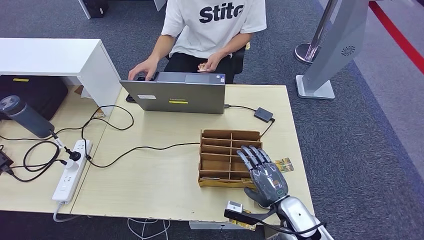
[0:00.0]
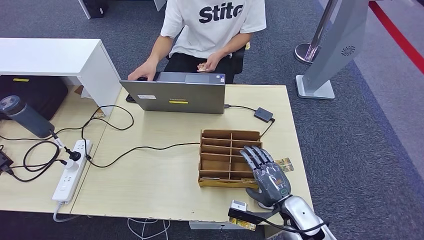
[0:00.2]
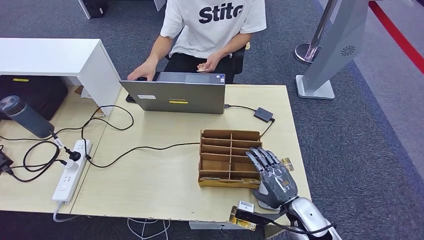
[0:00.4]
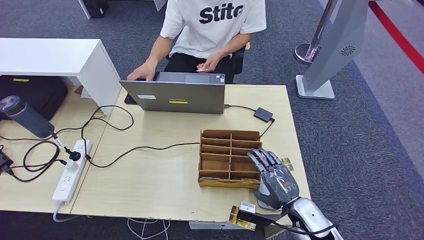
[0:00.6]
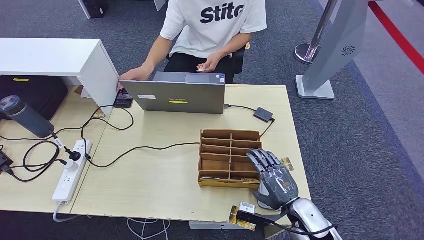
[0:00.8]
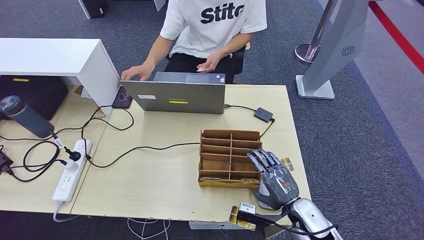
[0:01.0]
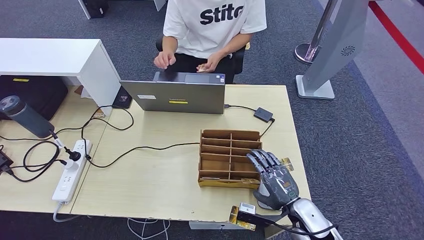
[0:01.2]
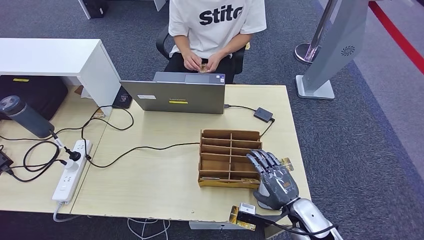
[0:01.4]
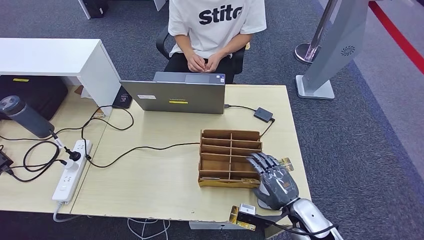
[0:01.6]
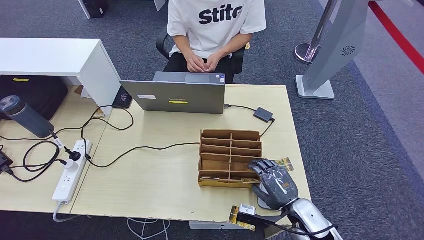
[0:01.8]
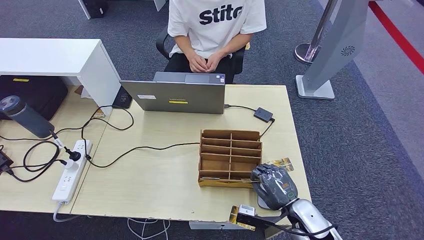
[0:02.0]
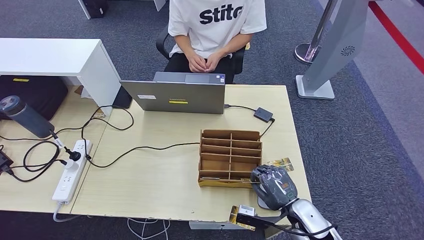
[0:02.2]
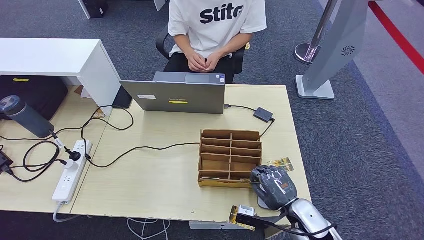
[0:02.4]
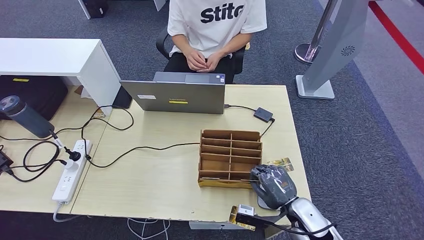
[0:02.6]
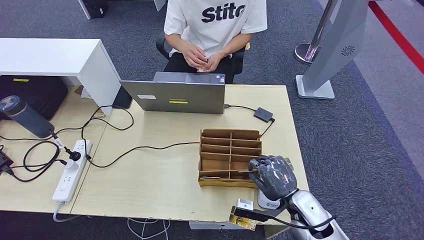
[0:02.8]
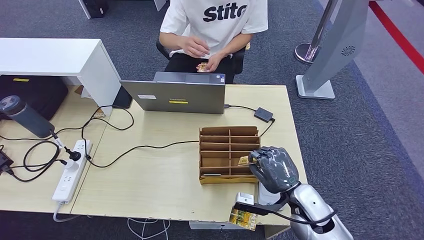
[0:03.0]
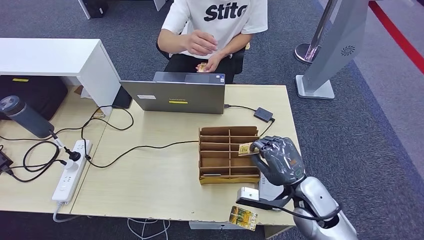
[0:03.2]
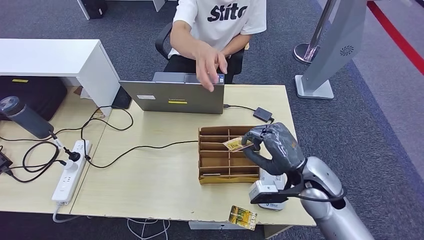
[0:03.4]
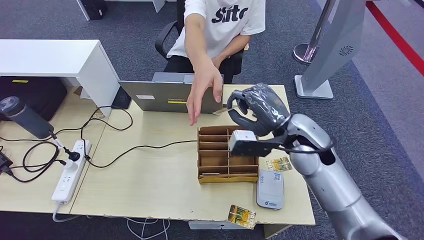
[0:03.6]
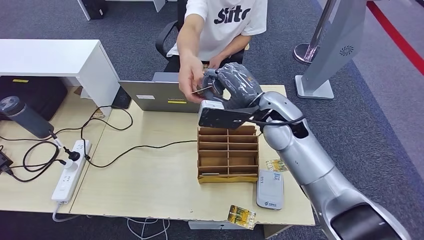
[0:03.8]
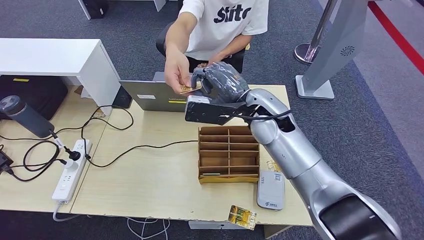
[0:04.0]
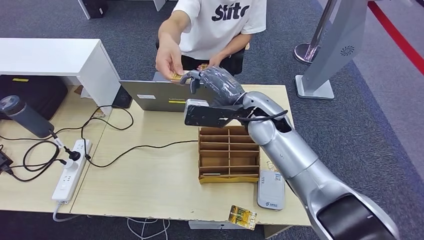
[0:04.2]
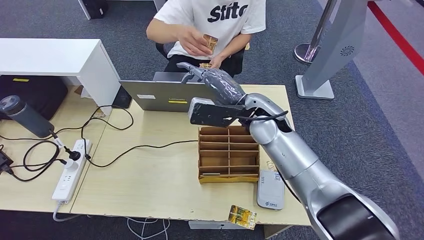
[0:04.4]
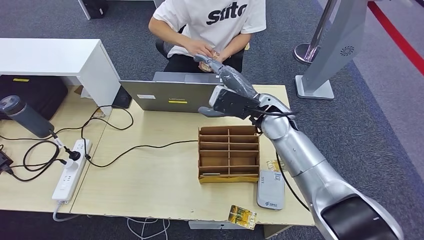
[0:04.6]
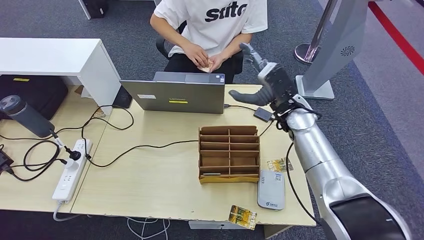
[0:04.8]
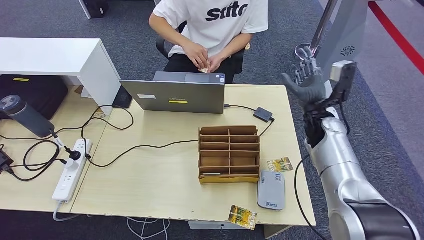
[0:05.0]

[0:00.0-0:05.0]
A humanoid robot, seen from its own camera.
Step, 0:00.0 to 0:03.2: Pick up the room key from the key card box.
Step, 0:03.4 to 0:05.0: Hand the room key to the person.
0:00.0 to 0:01.6: The hands move only a little.
0:01.6 to 0:03.4: The right hand travels upward and forward by roughly 15 cm.
0:03.4 to 0:05.0: The right hand is displaced forward by about 15 cm, and reaches some 15 cm to the left, then returns.

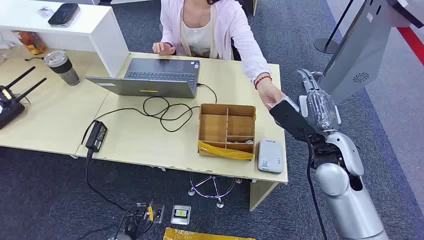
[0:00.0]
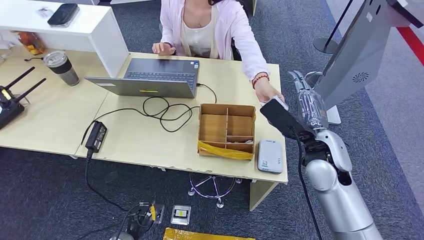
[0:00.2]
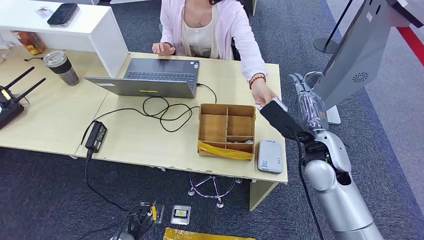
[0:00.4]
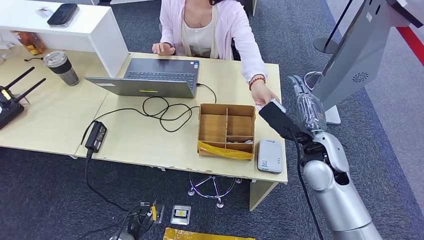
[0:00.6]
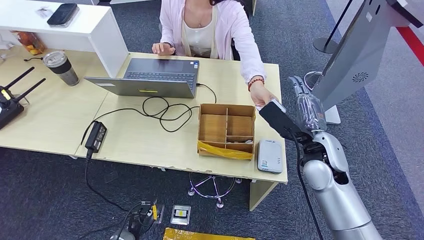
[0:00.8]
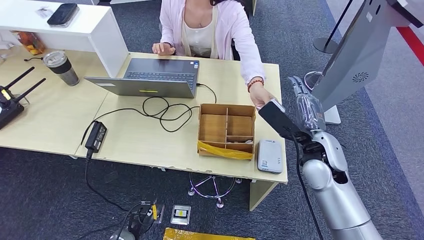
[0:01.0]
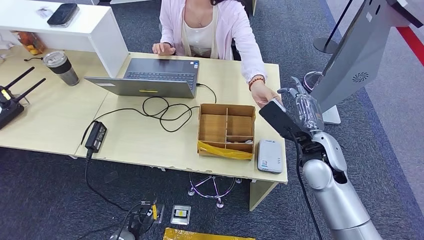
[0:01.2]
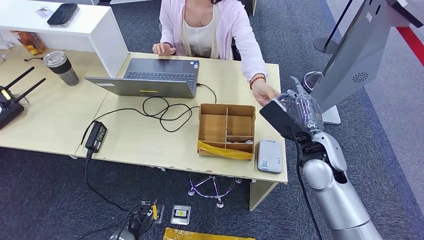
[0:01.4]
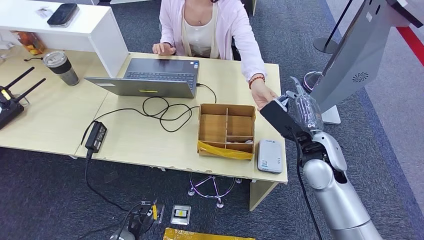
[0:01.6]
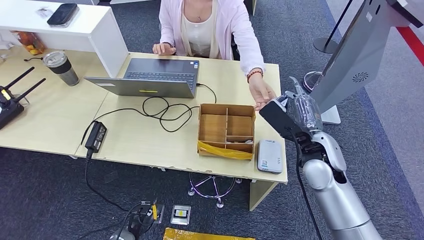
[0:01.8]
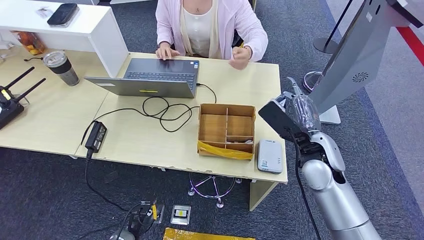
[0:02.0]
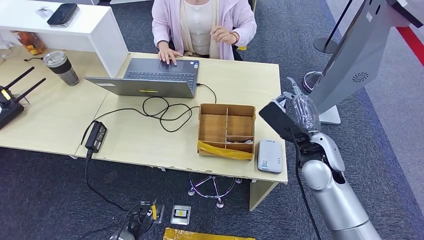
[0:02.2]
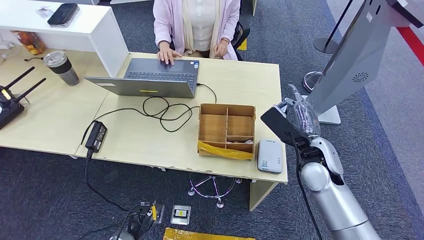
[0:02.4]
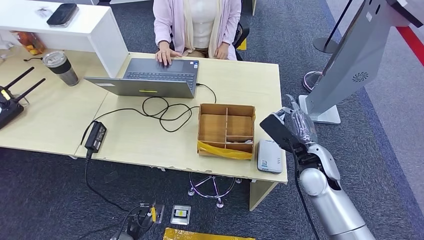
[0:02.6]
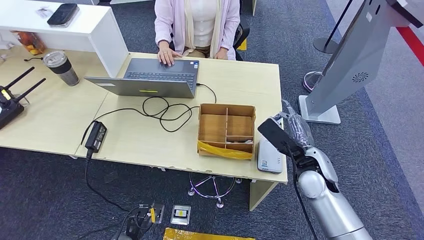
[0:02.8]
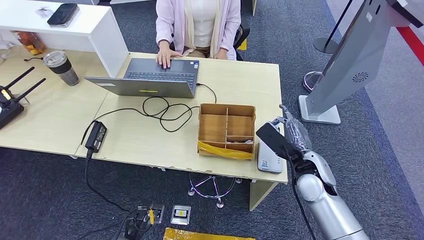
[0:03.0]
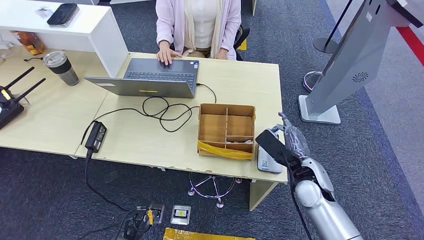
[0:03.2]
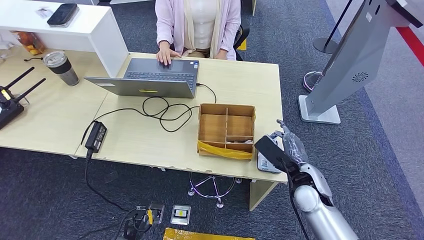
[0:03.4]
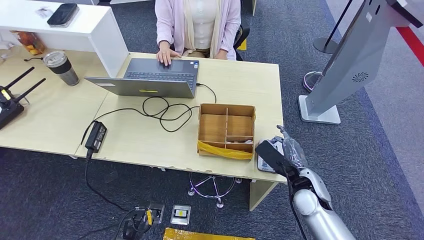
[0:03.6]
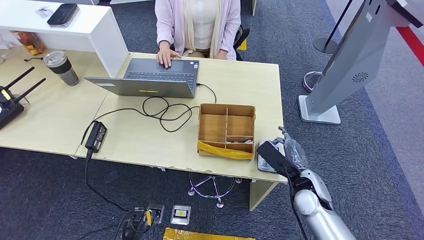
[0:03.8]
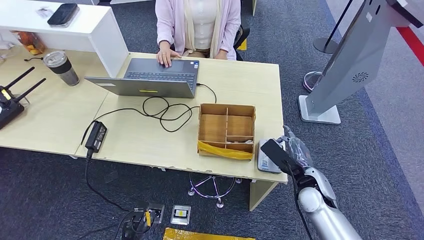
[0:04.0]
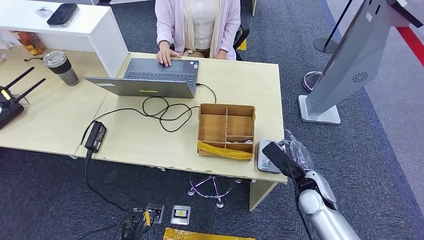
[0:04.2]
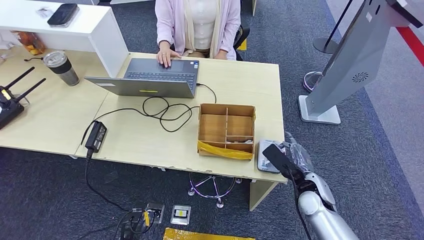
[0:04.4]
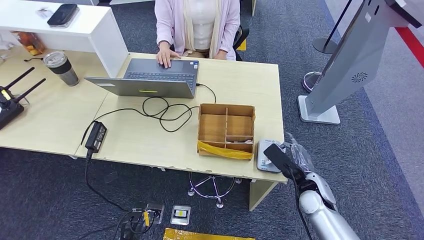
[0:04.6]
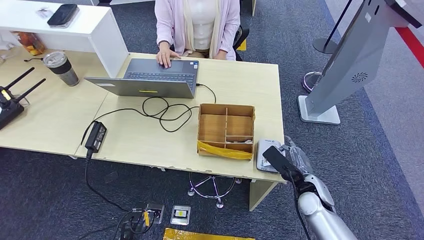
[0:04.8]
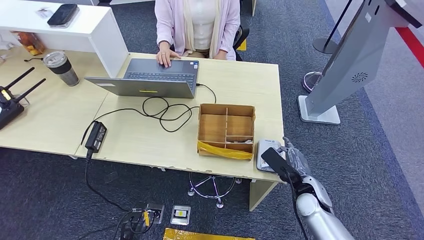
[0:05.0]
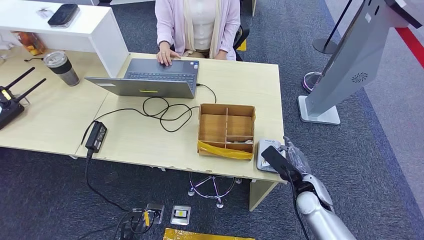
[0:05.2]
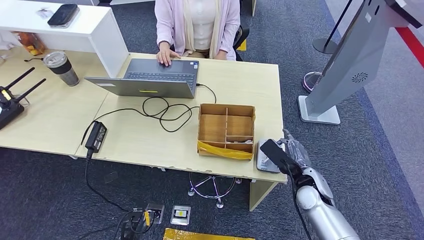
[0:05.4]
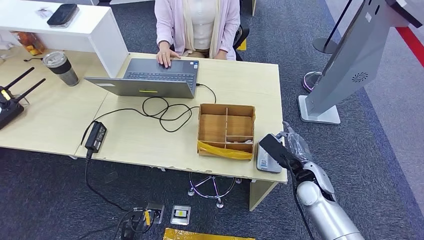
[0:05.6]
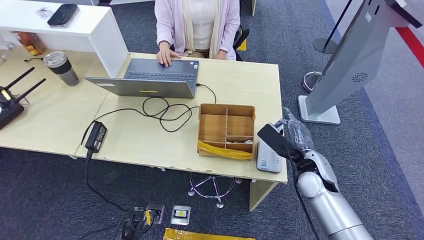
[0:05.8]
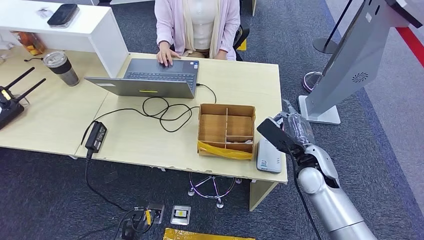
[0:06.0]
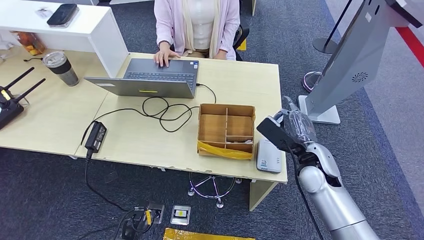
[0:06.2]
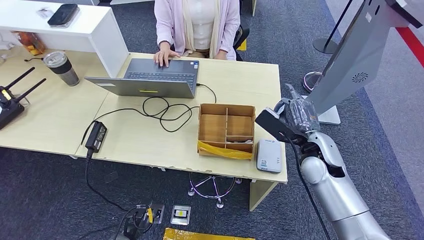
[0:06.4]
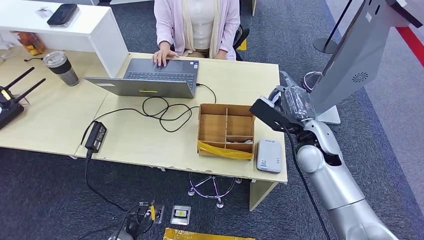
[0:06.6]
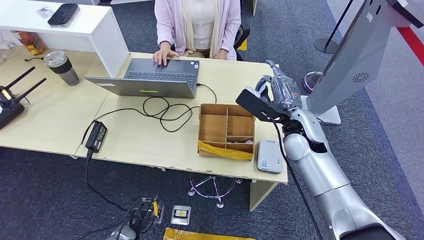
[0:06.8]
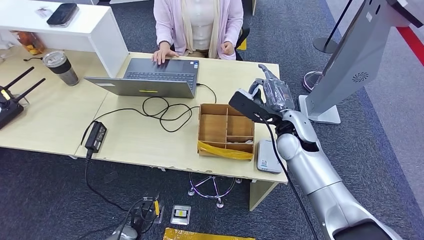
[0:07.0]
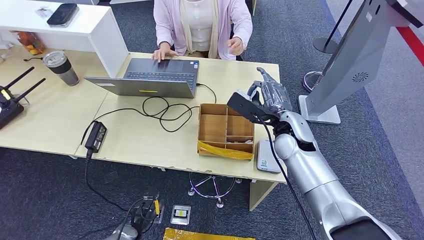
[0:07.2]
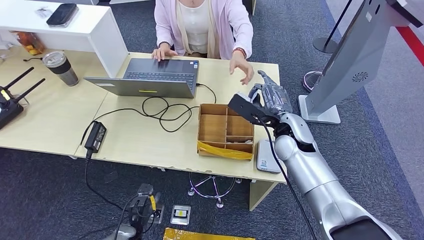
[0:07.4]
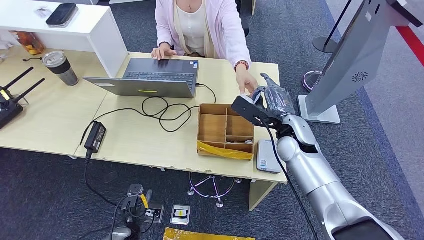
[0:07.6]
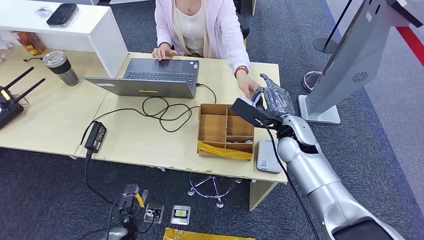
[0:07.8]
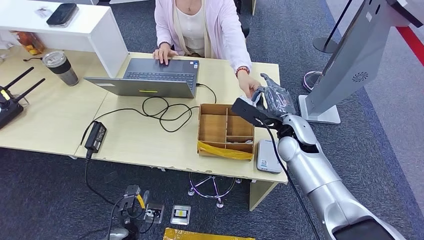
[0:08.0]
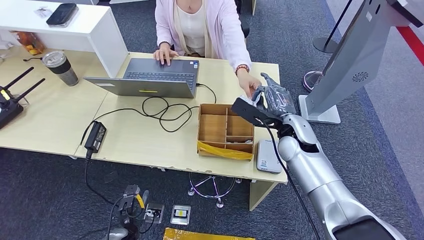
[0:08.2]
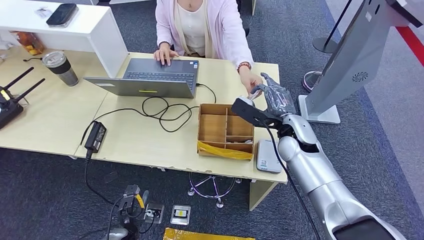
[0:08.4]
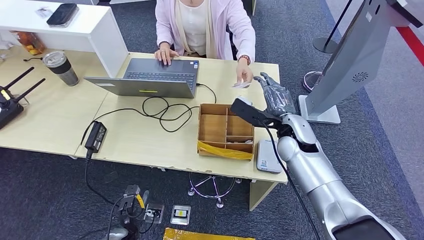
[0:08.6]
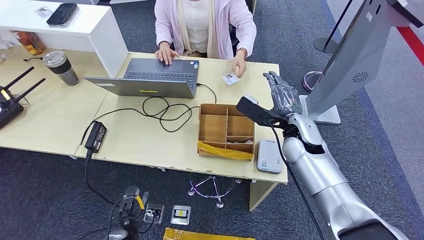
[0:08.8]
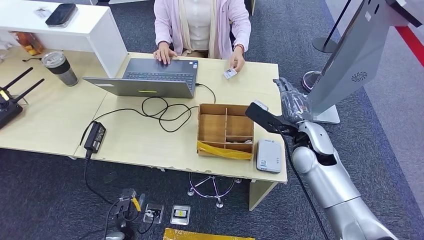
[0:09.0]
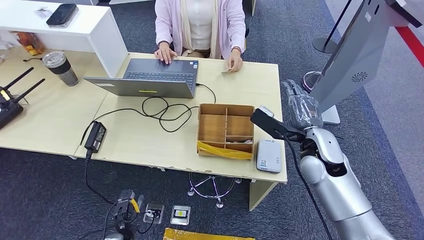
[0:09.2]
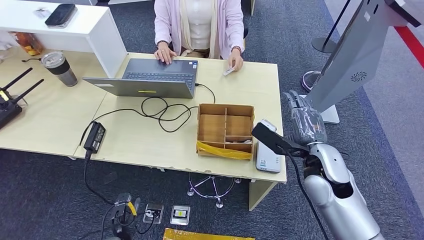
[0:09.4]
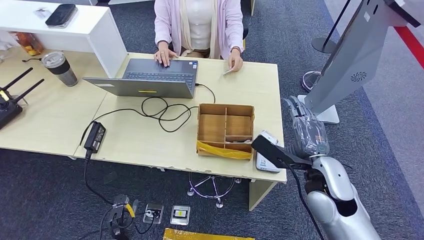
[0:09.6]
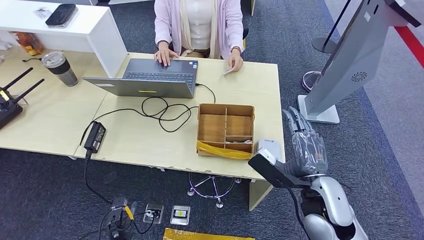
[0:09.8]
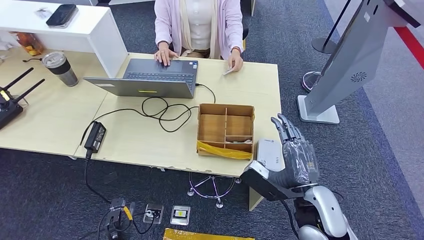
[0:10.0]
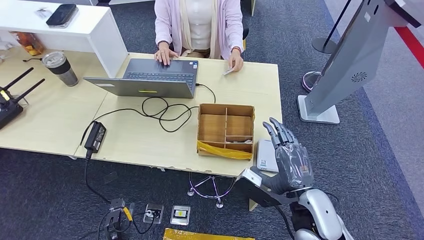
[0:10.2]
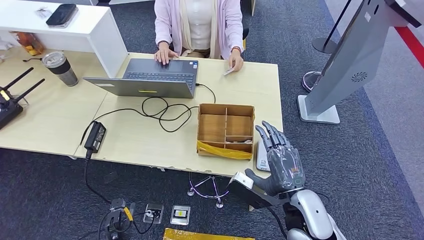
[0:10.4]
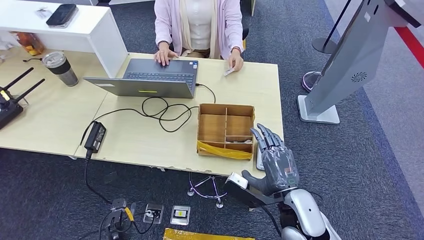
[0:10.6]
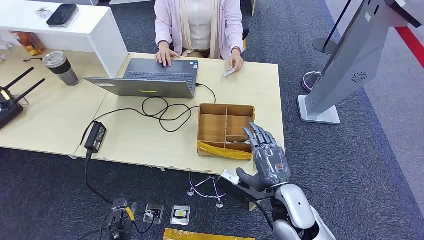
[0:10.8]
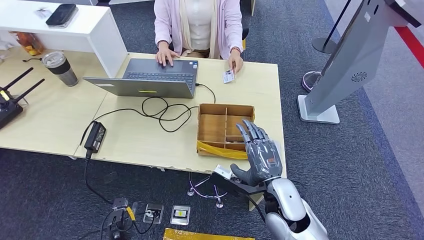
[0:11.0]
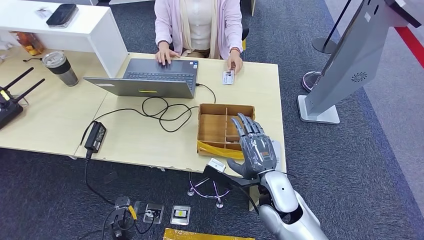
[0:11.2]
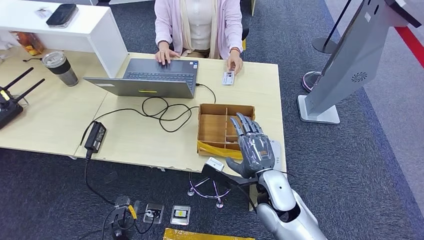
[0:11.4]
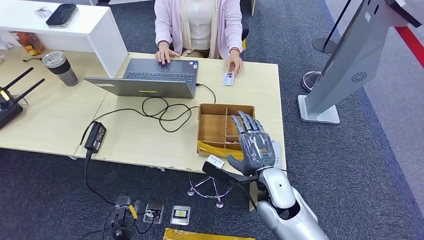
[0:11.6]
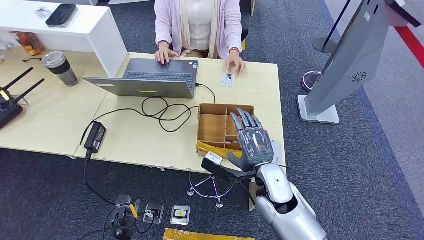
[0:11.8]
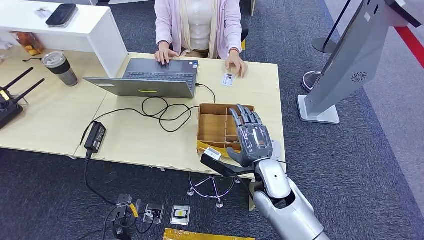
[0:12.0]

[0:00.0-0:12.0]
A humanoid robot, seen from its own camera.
Step, 0:00.0 to 0:02.2: Take the ID card from the person's hand.
Step, 0:02.8 to 0:04.6: Place the ID card on the card reader.
Step, 0:05.8 to 0:08.8: Hand the ID card to the person.
0:01.6 to 0:03.0: The right hand is displaced downward by approximately 5 cm.
0:03.0 to 0:04.4: The right hand moves downward, some 10 cm.
0:04.4 to 0:06.0: The right hand is displaced upward by roughly 10 cm.
0:06.0 to 0:07.6: The right hand shifts roughly 10 cm to the left and forward.
0:07.6 to 0:09.0: The hands move only a little.
0:09.0 to 0:10.4: The right hand moves backward, about 15 cm.
0:10.4 to 0:12.0: The right hand goes roughly 10 cm forward and to the left.
